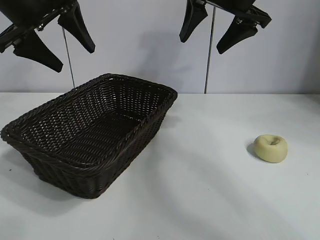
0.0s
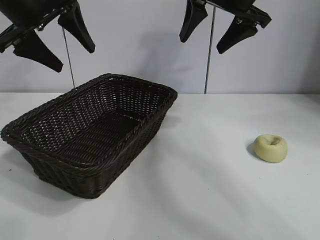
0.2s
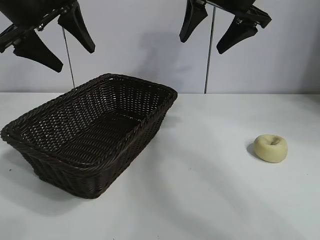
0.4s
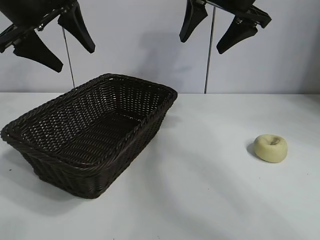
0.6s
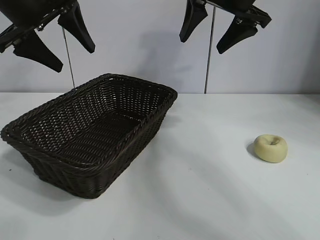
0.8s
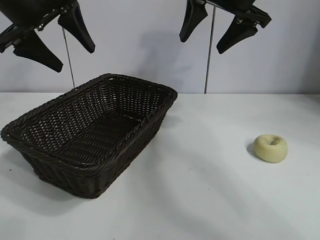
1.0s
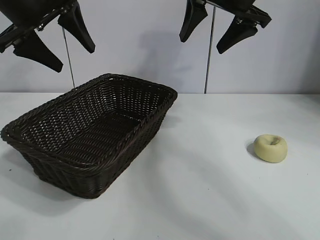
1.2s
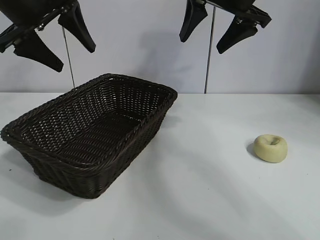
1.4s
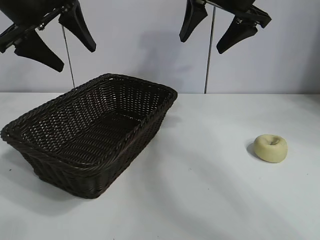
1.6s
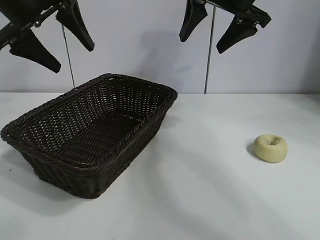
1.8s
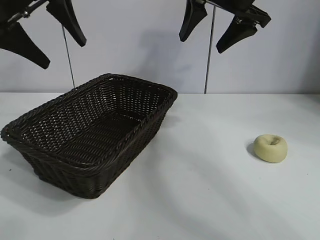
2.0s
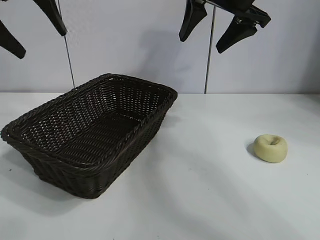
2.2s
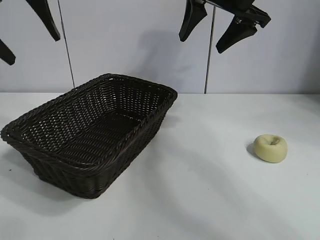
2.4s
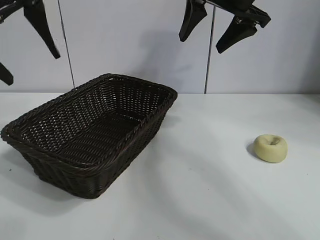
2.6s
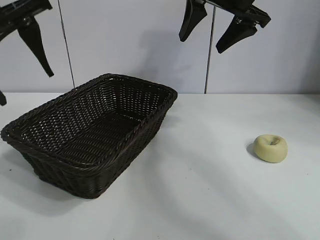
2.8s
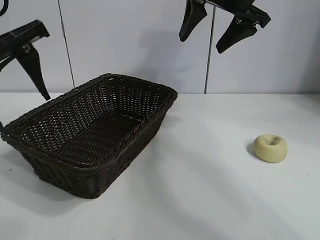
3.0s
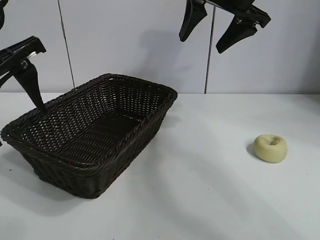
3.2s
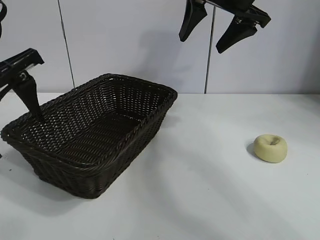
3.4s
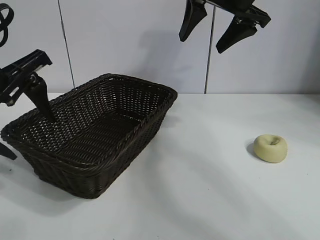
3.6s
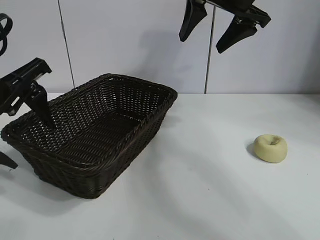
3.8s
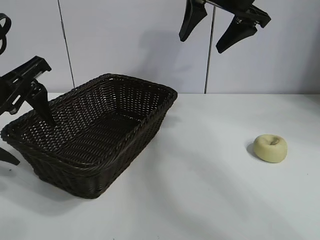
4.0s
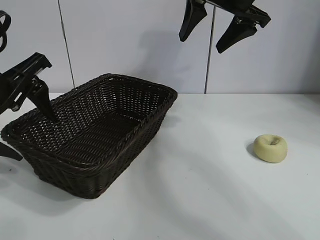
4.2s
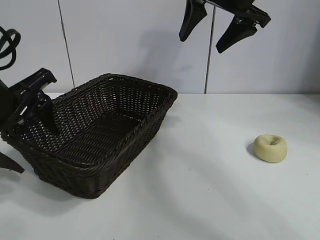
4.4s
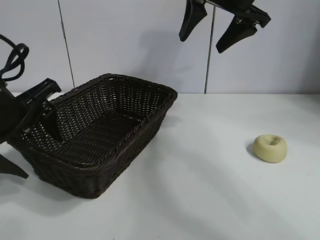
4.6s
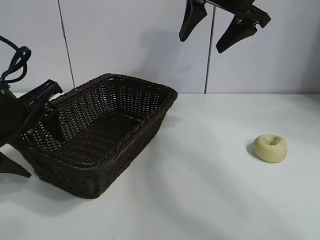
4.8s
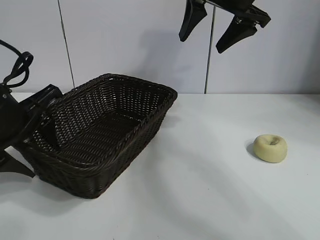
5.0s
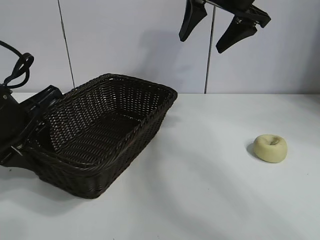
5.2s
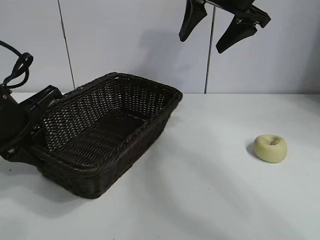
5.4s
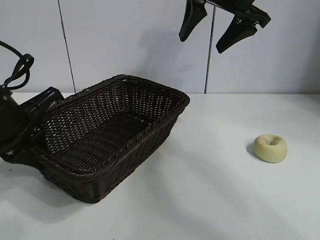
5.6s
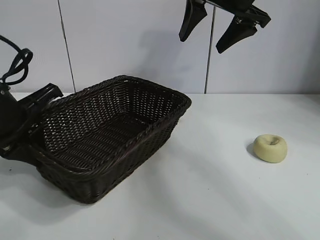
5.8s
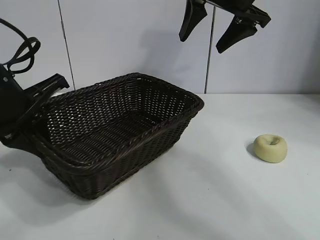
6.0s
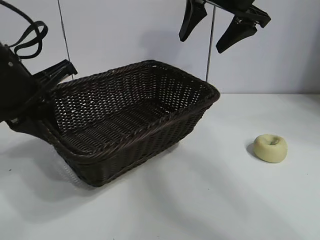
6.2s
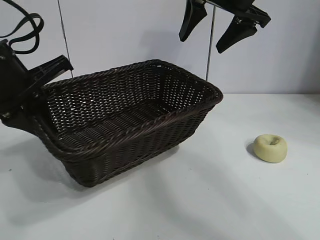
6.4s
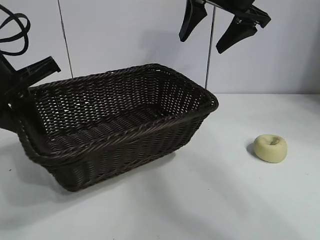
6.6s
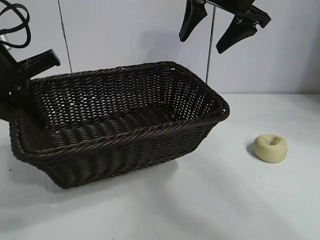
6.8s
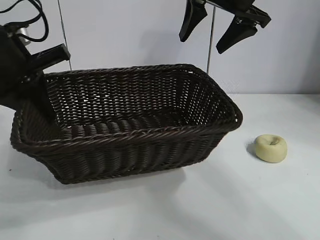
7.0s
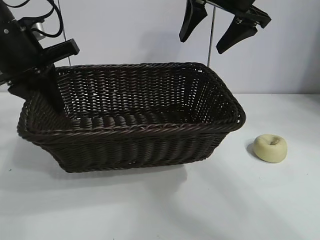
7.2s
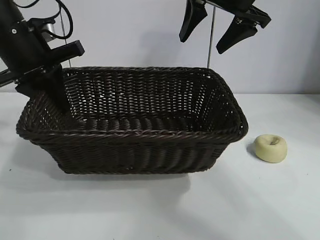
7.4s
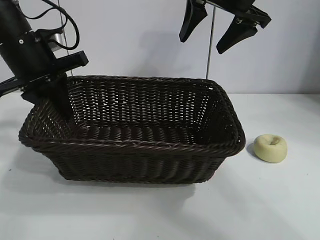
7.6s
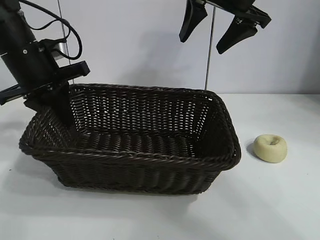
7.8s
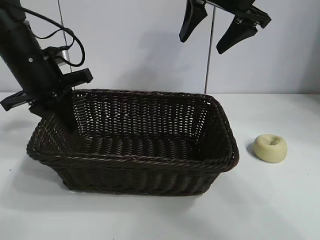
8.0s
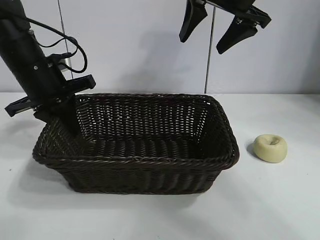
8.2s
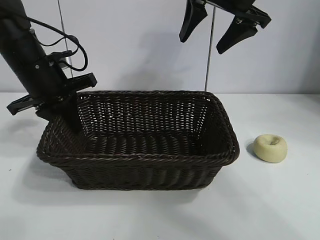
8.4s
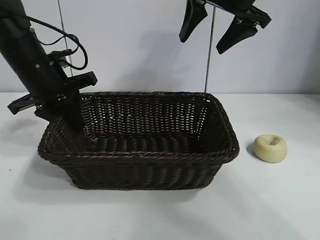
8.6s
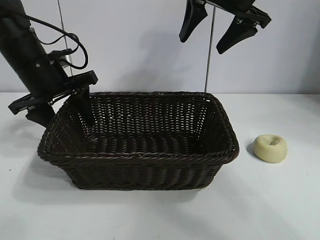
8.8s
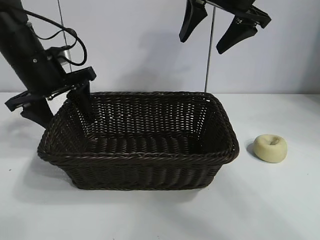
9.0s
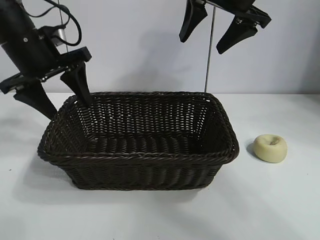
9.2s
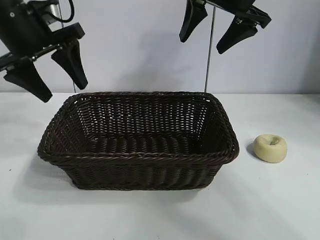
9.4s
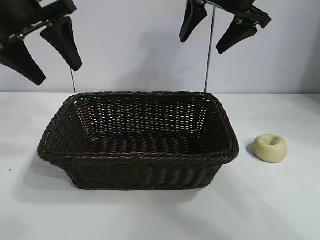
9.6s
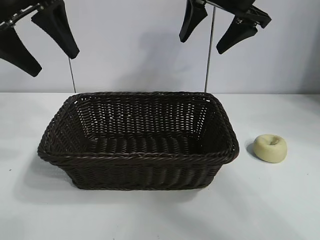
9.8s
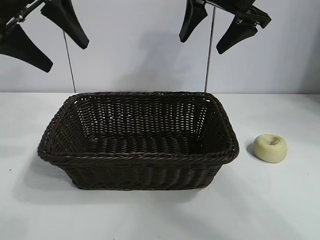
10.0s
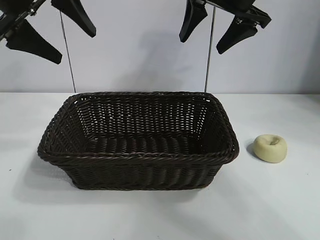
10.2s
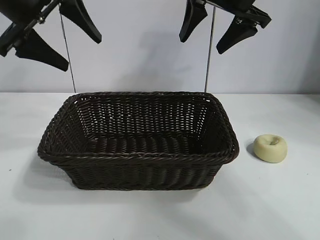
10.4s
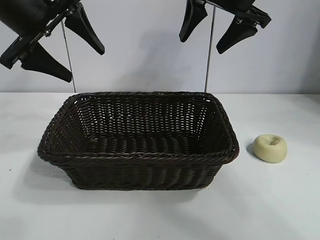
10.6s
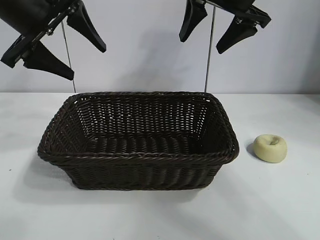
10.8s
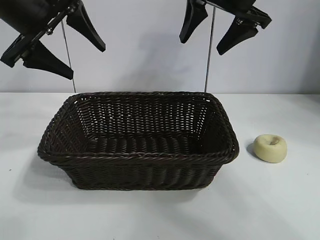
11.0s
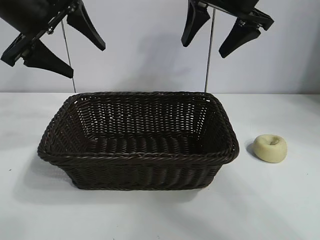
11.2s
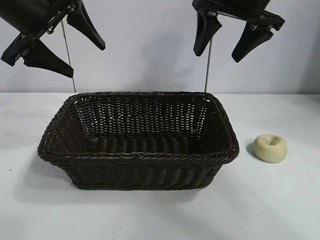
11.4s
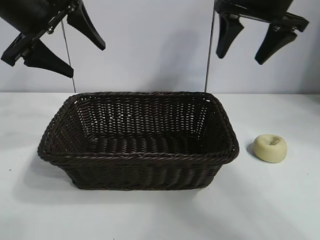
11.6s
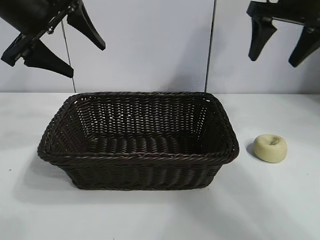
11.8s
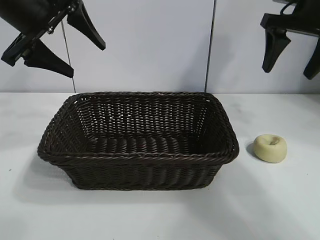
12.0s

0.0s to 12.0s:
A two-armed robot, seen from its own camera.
Task of the whole recording: pick up the egg yolk pastry and put it into the basket.
Step, 1.4s to 5.2s: Grasp the basket with left gripper.
Step, 5.4s to 8.8s: Place the basket in the center of view with left gripper.

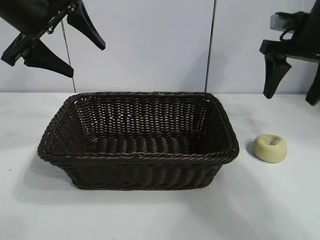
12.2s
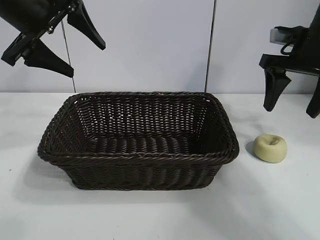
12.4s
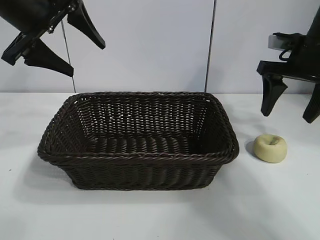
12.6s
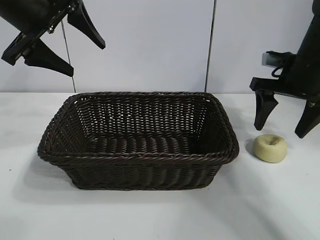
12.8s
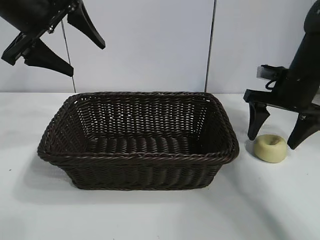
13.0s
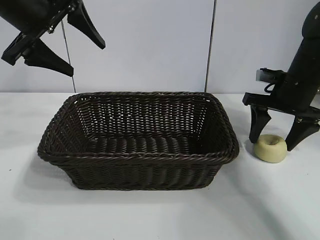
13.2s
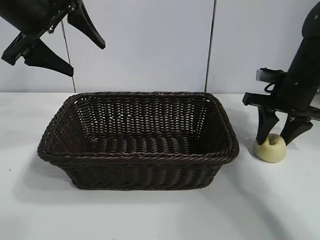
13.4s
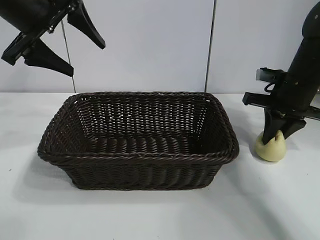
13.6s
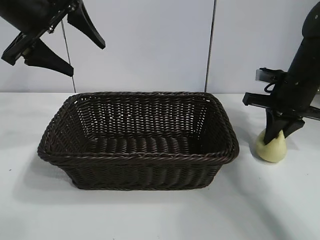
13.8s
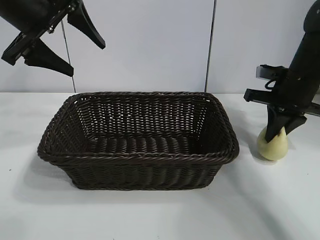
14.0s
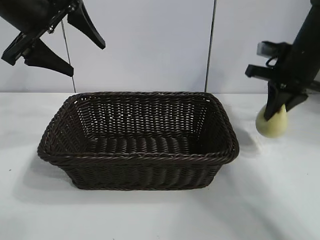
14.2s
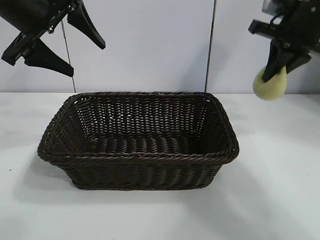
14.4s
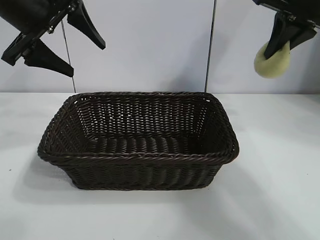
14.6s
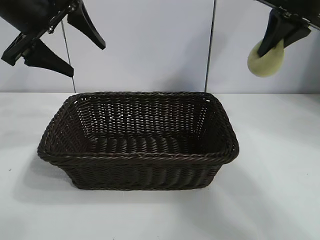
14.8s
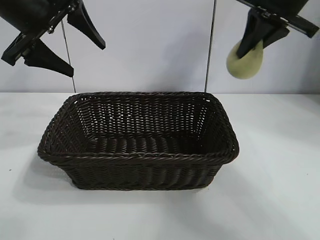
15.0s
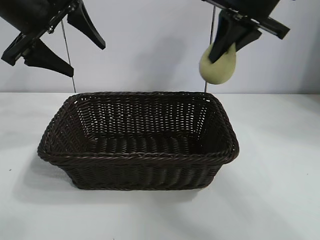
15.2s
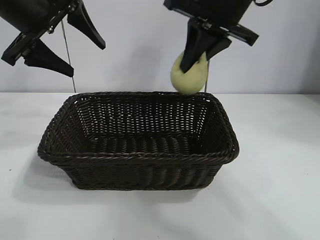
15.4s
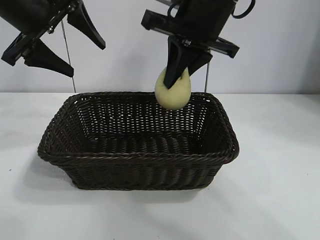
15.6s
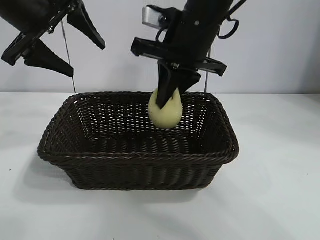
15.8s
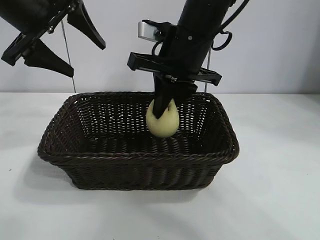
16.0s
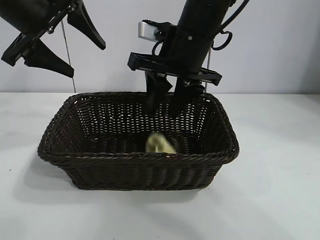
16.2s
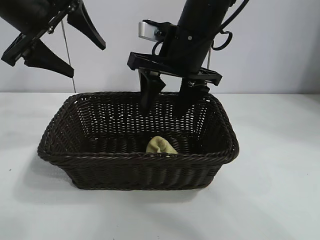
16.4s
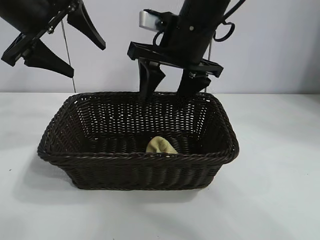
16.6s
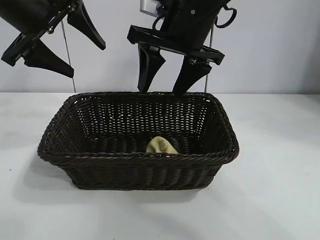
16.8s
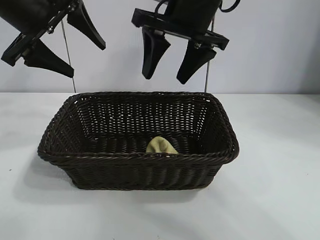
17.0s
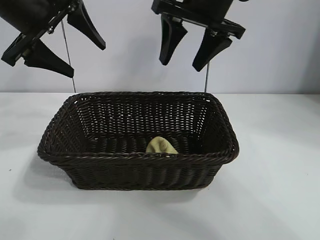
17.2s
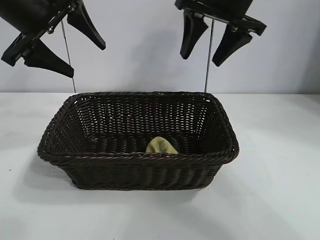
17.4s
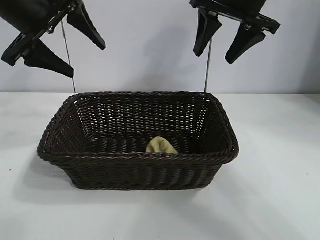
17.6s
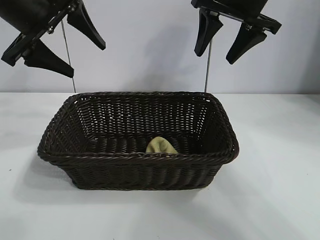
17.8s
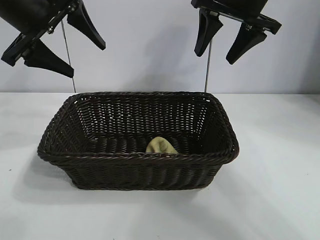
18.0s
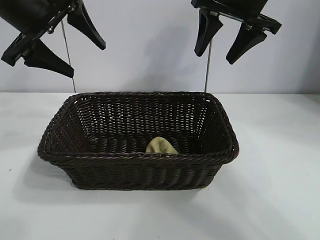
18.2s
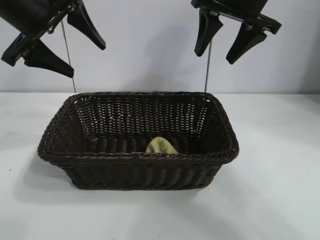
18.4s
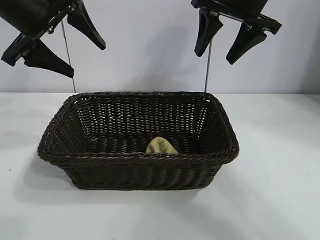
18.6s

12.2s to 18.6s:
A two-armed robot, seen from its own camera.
Task of the whole recording: pick up the egg yolk pastry and put it into the basket.
Step, 14.0s to 16.2s: Place the egg yolk pastry in the basket with right gripper.

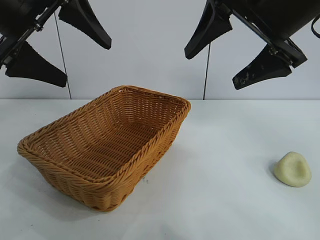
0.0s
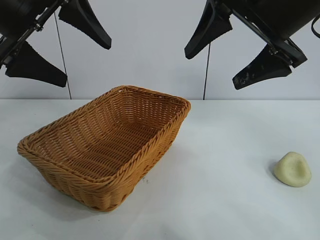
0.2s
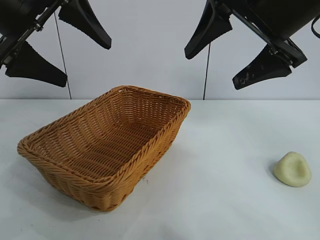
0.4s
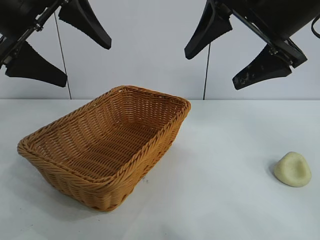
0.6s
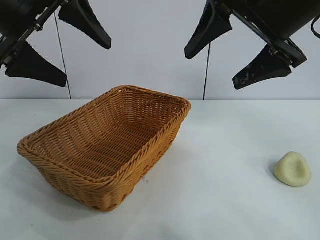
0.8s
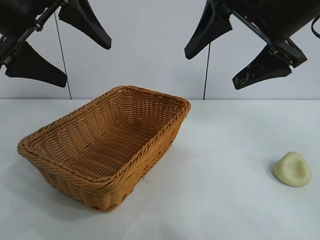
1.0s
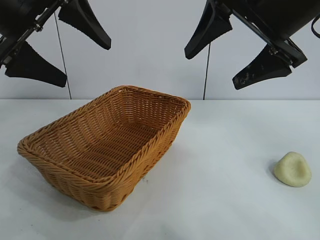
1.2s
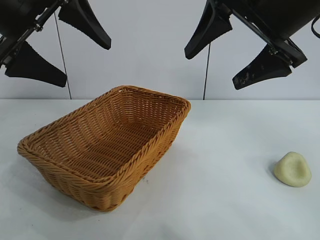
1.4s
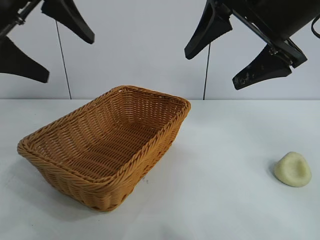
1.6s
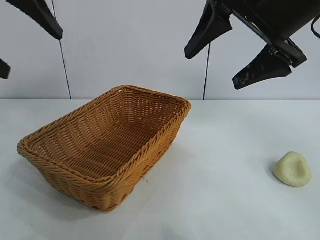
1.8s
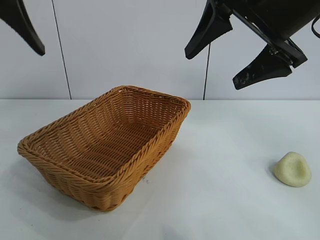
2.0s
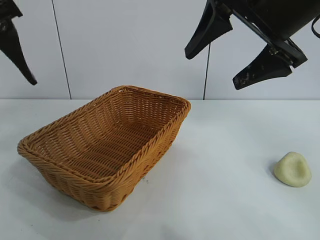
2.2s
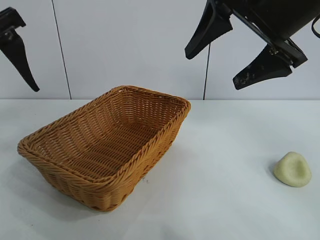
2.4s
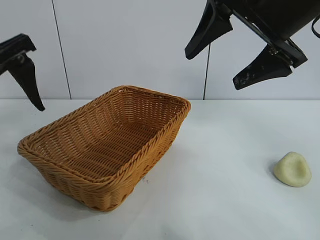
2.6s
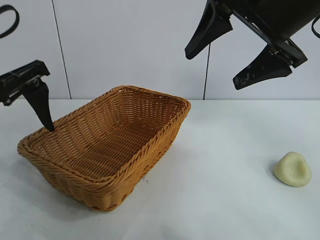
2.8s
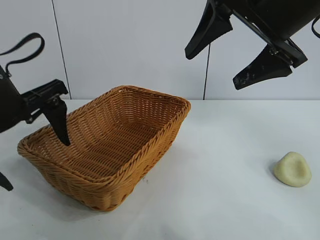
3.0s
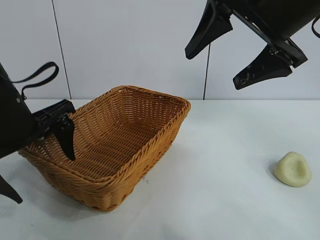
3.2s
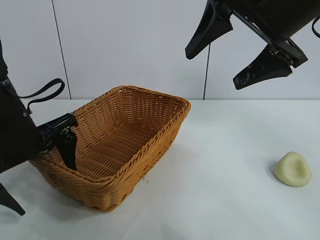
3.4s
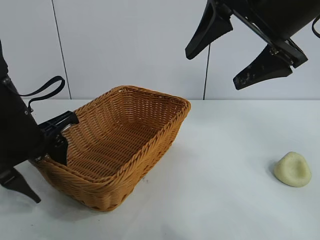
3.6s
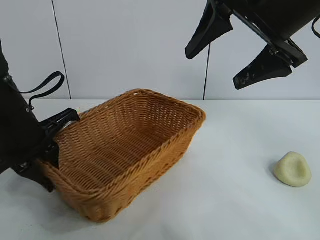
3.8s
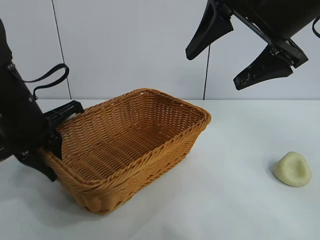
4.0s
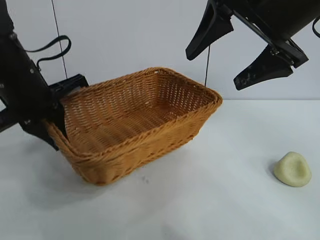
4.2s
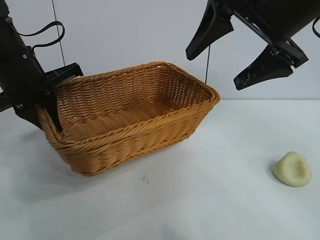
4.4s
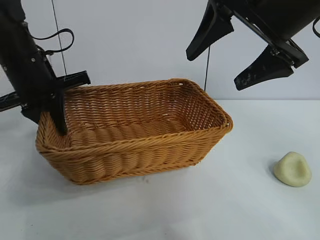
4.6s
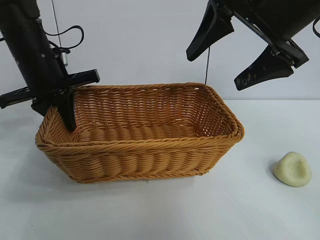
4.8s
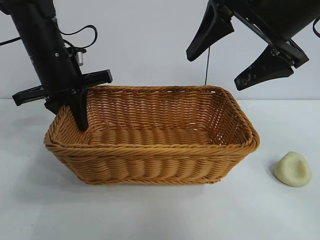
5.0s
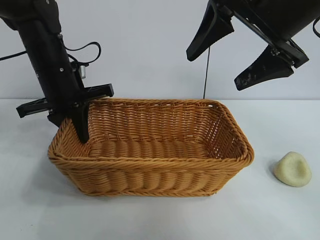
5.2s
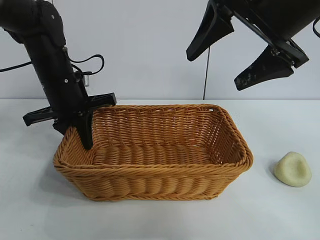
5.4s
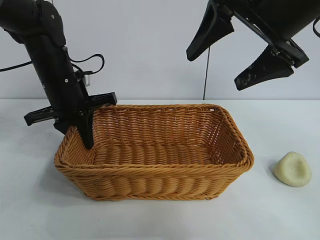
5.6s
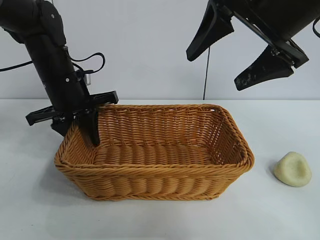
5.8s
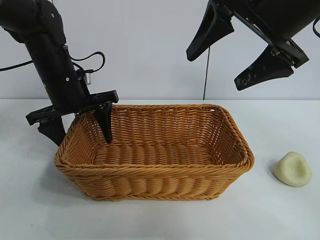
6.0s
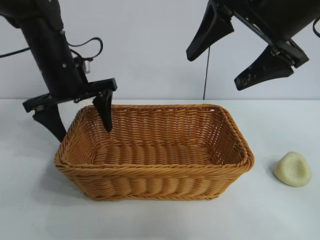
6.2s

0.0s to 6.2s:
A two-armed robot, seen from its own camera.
Task of the whole recording: pick up the egg yolk pastry and put it into the basket.
Step, 1.6s to 3.6s: Grasp the basket with left gripper.
Step, 3.8s to 5.8s: Place the basket in the center of view with left gripper.
